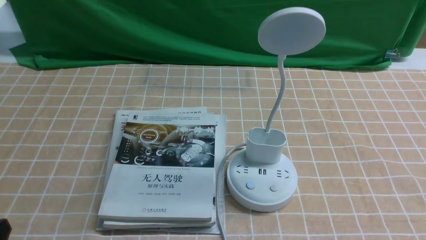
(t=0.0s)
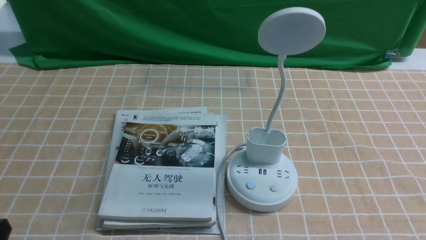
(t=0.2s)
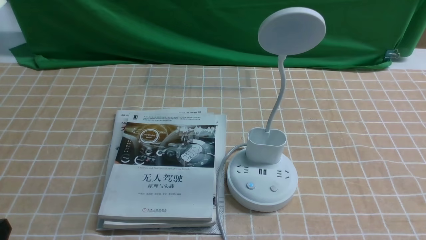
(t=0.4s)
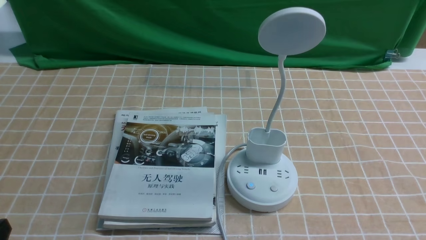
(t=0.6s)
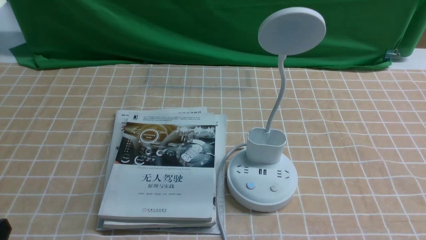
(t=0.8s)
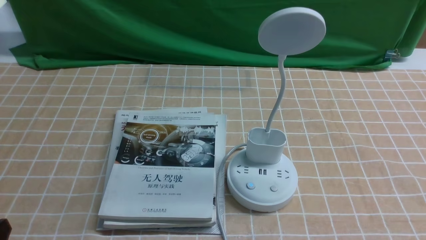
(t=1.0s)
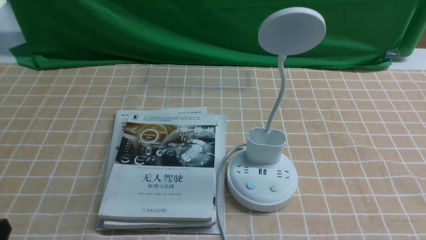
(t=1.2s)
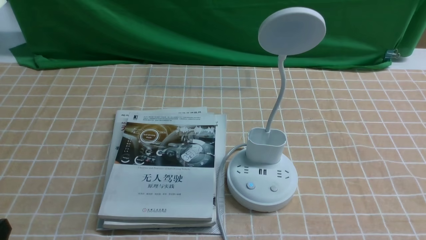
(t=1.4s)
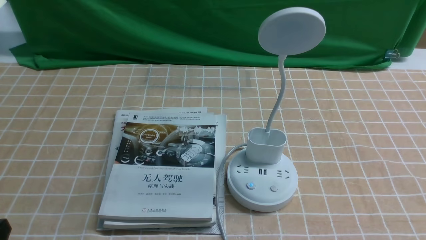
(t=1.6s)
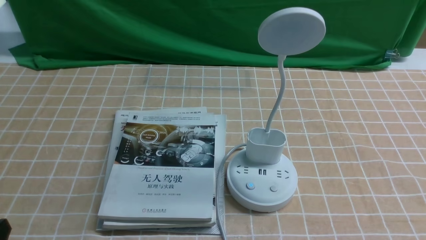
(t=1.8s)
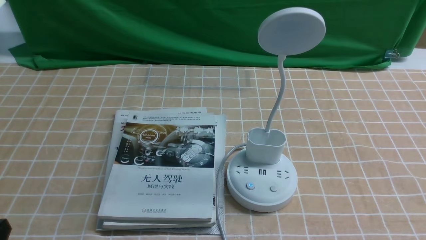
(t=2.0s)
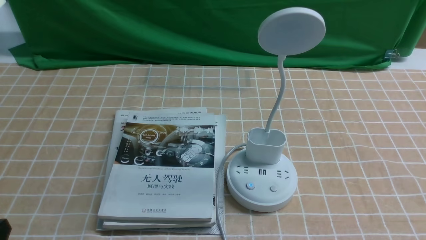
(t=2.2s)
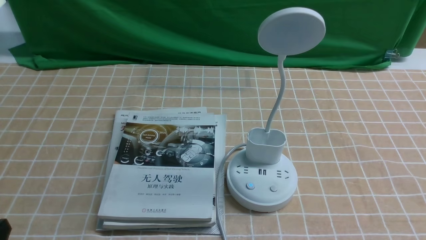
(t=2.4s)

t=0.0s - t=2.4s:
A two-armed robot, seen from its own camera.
Task of the whole recording: turn off the desk lamp on the light coffee tablecloth by hand.
t=0.0s - t=1.2s: Both grippers stay put.
